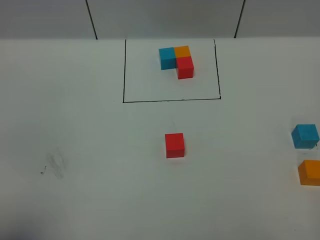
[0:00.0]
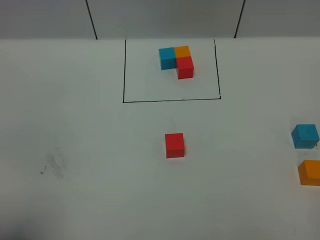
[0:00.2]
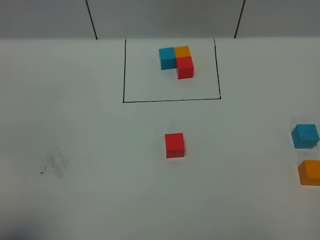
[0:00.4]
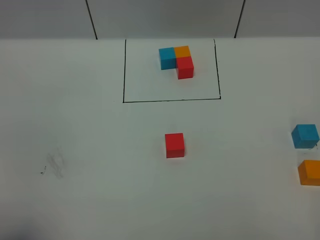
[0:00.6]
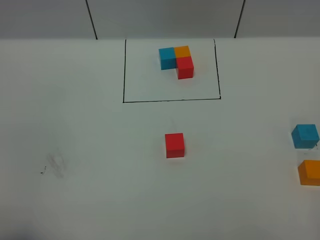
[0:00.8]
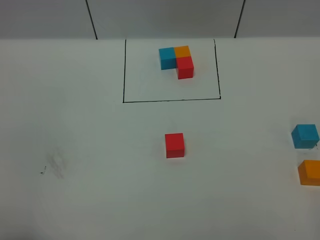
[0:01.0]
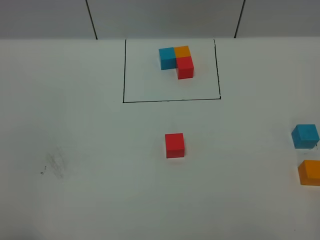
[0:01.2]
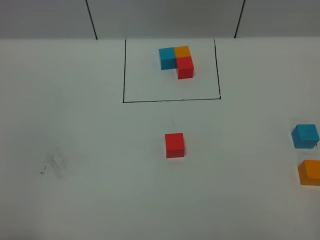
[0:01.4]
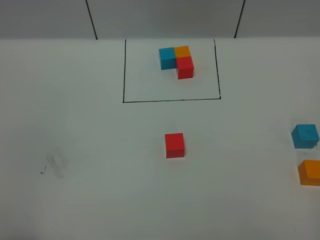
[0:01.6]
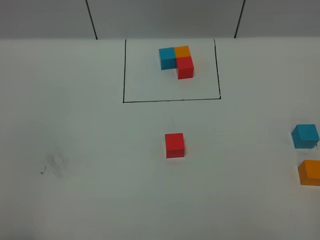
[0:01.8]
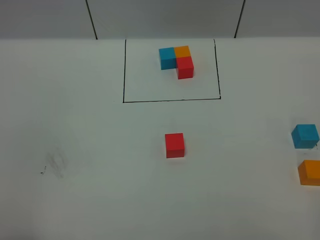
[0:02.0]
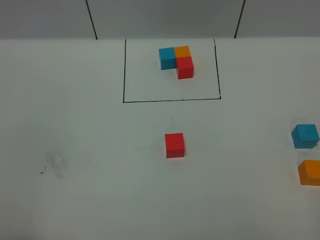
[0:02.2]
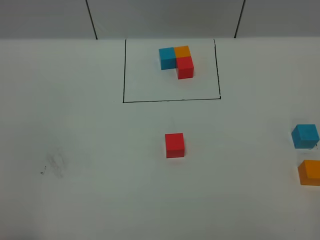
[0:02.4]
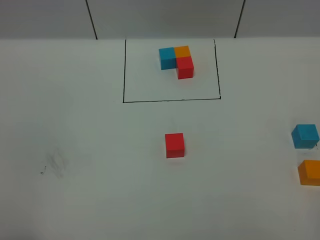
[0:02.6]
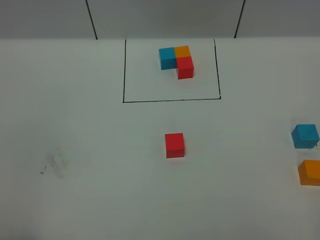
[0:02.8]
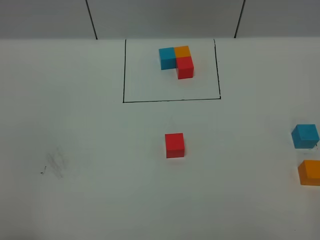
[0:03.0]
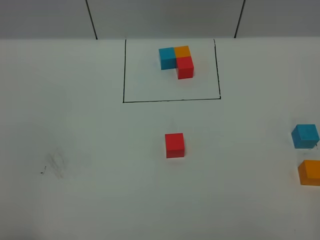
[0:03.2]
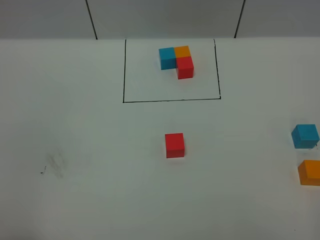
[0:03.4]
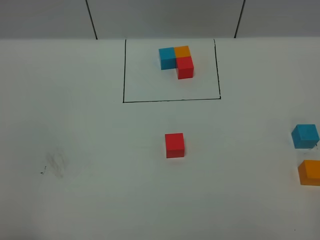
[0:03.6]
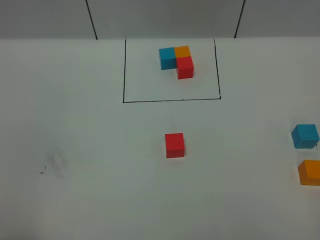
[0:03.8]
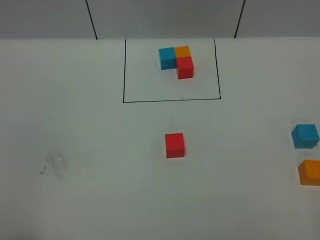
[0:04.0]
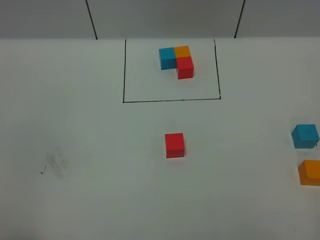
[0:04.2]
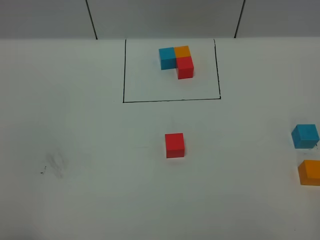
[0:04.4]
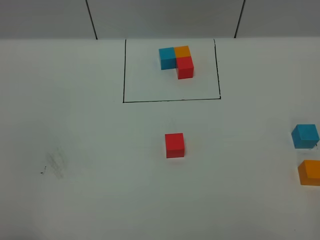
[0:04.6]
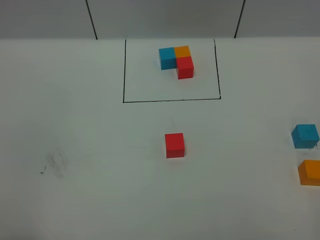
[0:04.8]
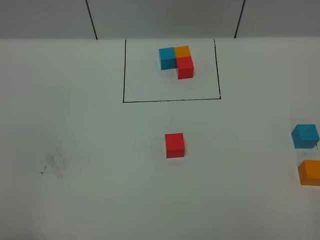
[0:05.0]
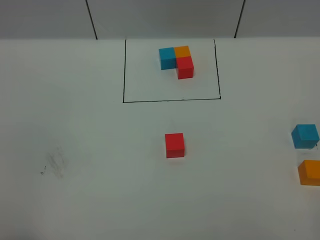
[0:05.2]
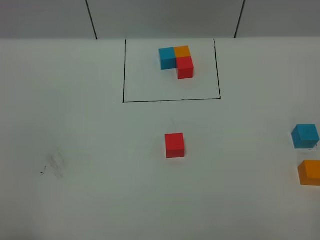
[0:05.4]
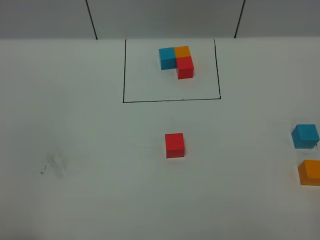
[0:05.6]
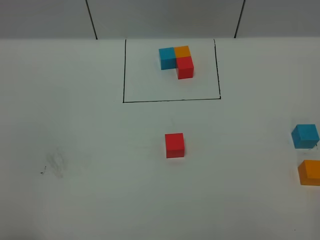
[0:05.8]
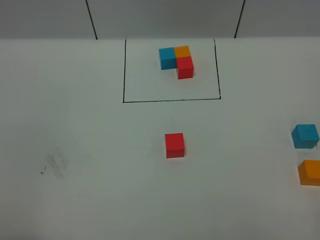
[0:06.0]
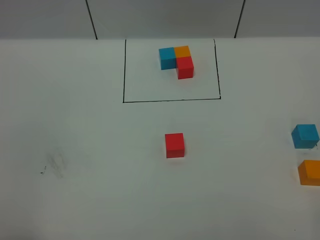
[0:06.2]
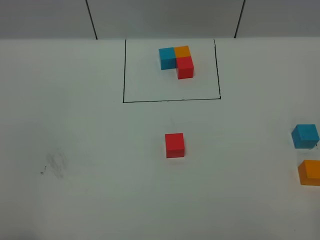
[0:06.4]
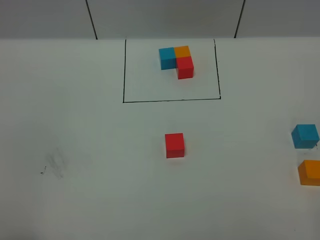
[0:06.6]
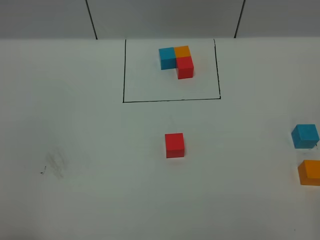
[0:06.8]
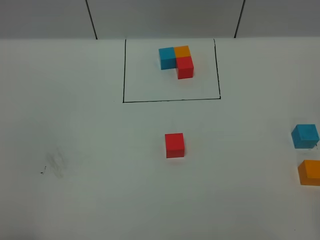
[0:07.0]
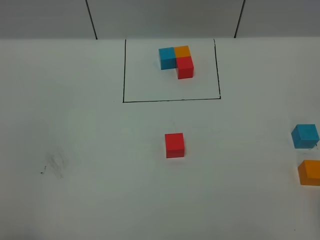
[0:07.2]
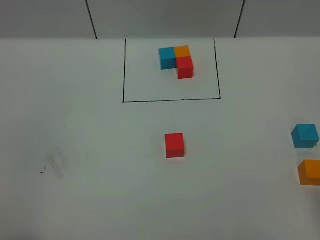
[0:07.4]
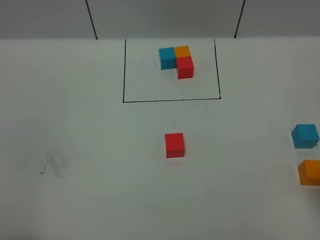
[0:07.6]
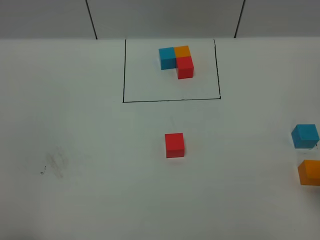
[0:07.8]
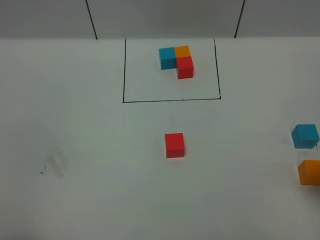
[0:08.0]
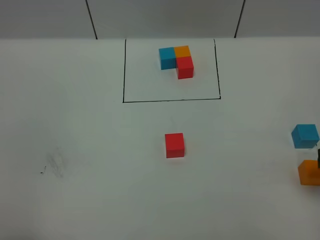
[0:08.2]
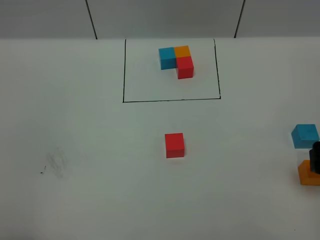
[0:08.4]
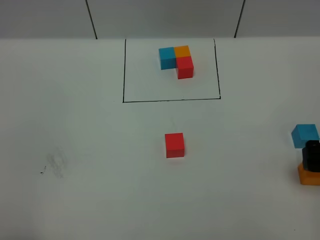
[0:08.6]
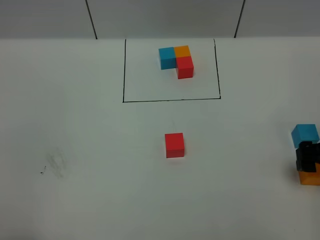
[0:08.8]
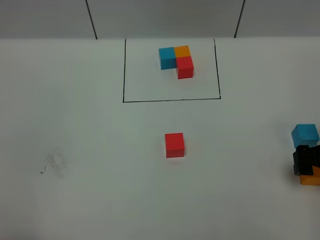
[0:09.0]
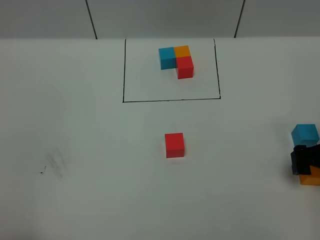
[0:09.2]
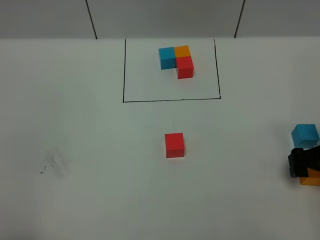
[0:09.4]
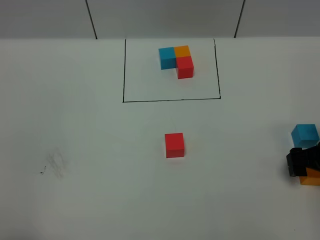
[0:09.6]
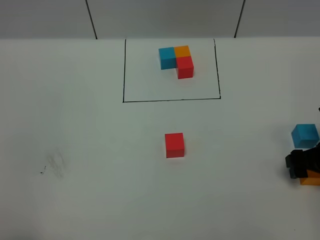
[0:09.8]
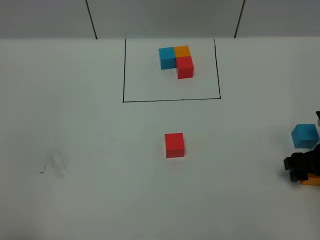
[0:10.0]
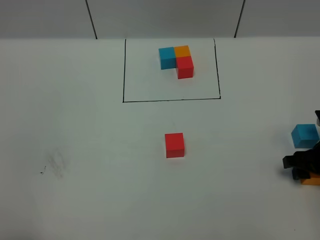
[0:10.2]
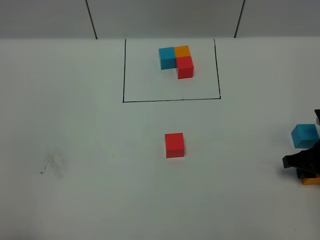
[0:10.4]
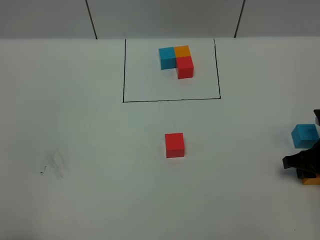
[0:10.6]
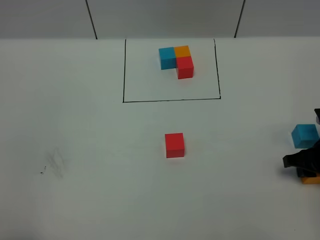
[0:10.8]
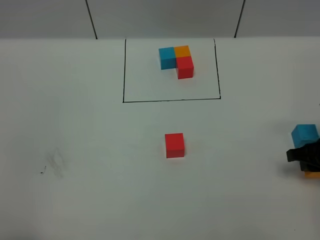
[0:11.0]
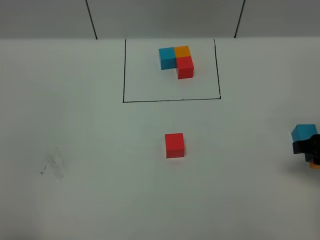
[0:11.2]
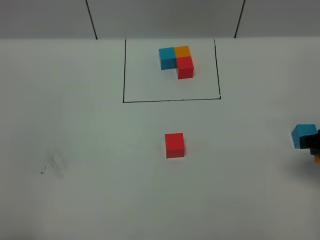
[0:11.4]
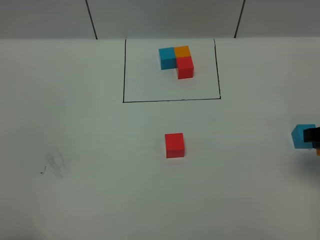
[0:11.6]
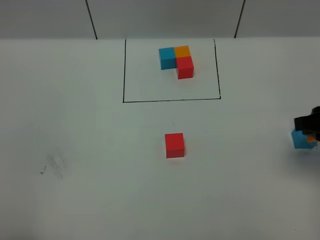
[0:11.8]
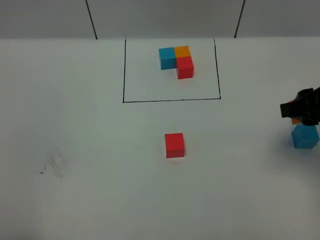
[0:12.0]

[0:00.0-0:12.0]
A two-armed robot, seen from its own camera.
Task of the whole recording: According to the building block template in front, assemble the scattered blocks together.
0:01.6 to 0:04.4: Both grippers stay about where they are.
0:07.6 to 0:09.0: The right gripper shifts some 15 cm downward and forward.
0:09.0 to 0:10.4: The right gripper ends up approximately 5 cm from where it was, and closes up.
0:10.4 to 0:12.0: The right gripper goes approximately 15 cm upward.

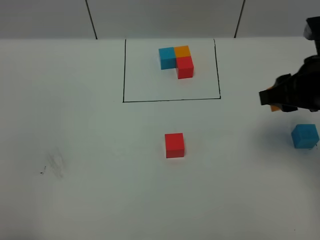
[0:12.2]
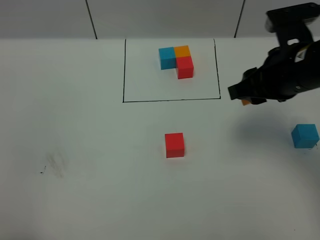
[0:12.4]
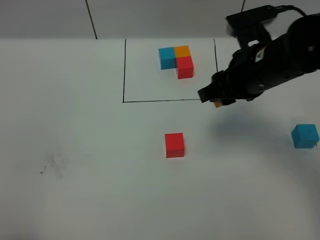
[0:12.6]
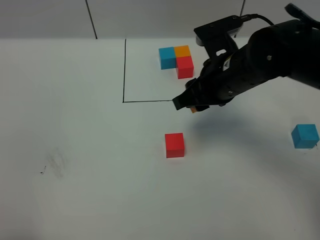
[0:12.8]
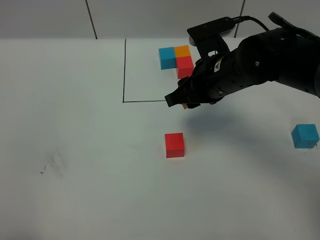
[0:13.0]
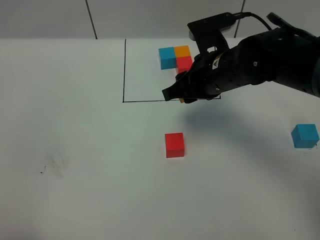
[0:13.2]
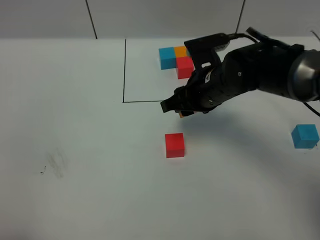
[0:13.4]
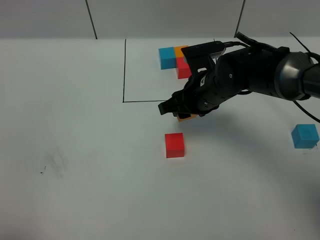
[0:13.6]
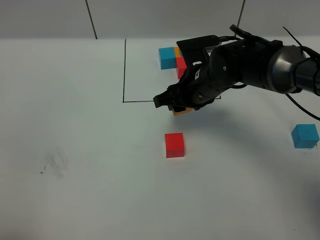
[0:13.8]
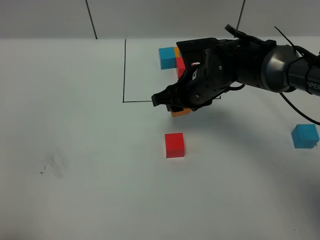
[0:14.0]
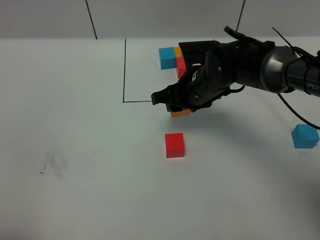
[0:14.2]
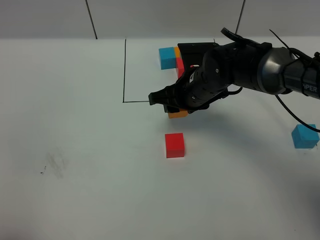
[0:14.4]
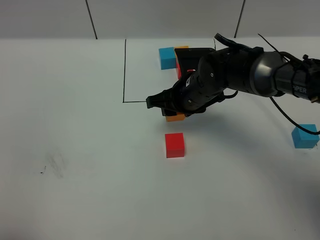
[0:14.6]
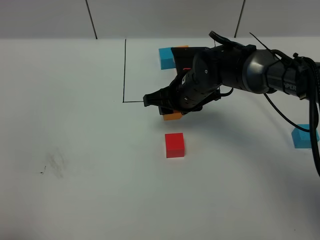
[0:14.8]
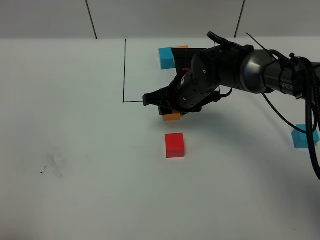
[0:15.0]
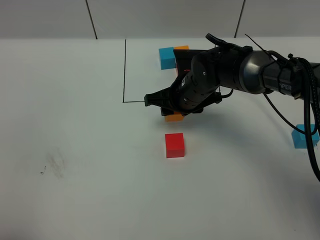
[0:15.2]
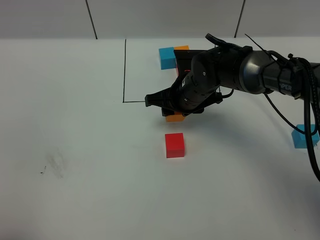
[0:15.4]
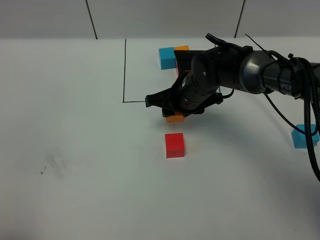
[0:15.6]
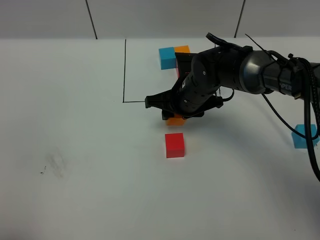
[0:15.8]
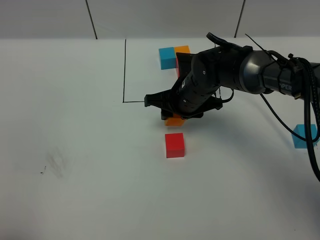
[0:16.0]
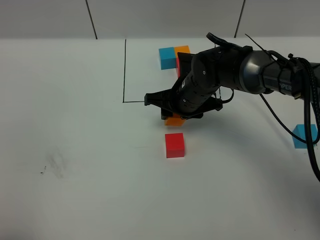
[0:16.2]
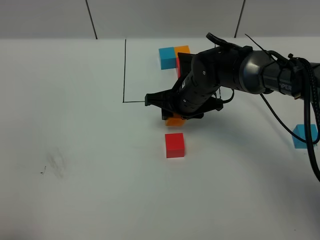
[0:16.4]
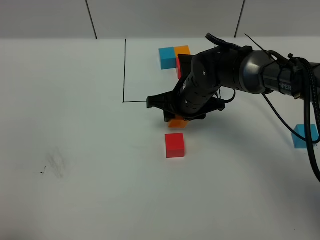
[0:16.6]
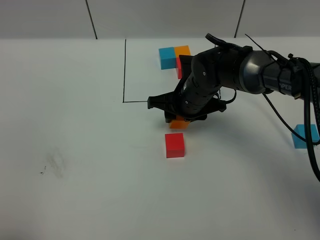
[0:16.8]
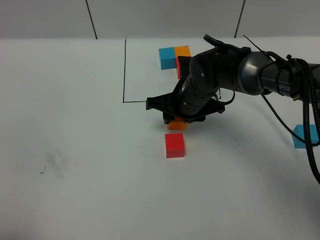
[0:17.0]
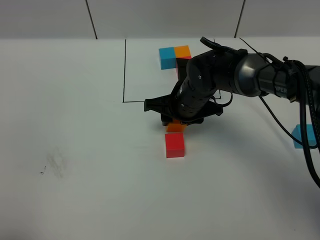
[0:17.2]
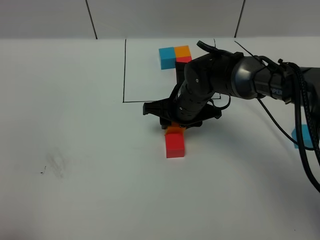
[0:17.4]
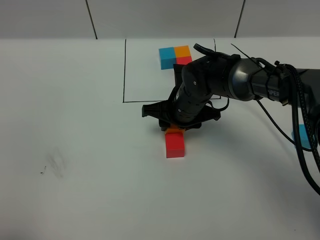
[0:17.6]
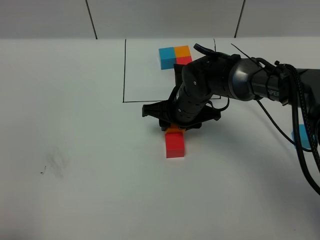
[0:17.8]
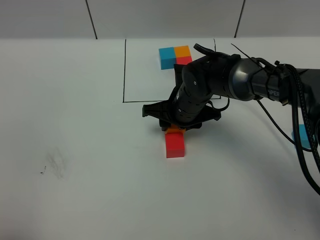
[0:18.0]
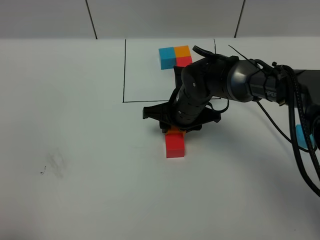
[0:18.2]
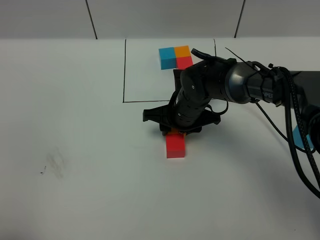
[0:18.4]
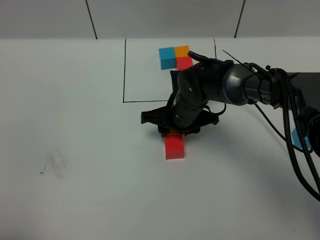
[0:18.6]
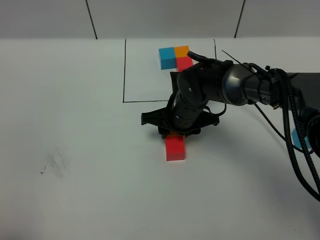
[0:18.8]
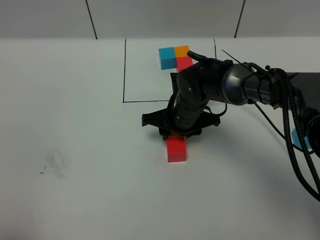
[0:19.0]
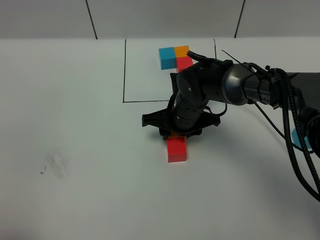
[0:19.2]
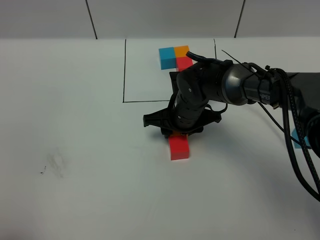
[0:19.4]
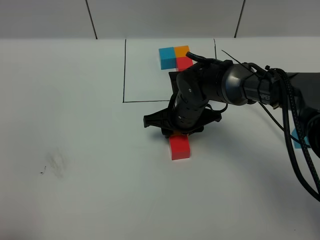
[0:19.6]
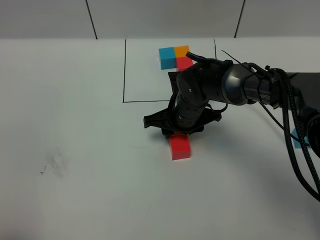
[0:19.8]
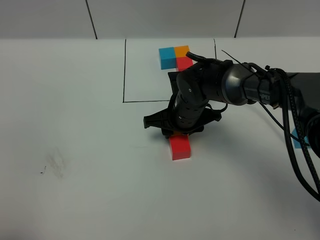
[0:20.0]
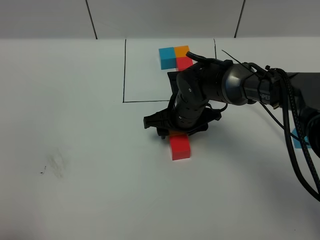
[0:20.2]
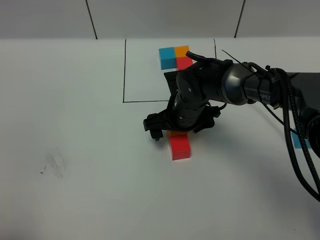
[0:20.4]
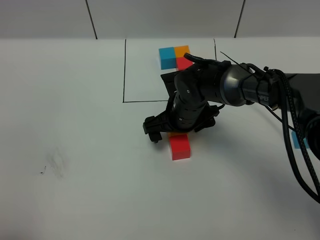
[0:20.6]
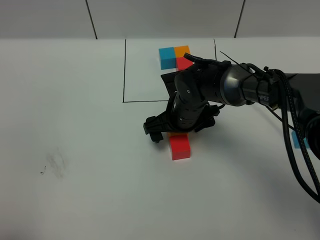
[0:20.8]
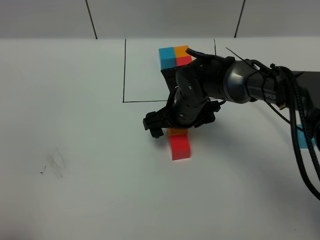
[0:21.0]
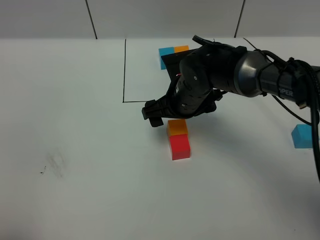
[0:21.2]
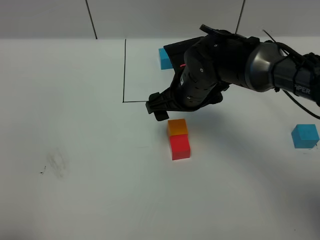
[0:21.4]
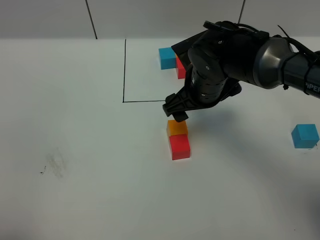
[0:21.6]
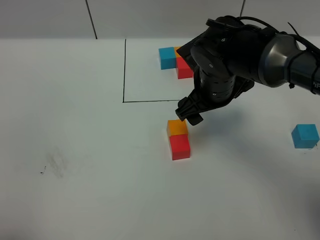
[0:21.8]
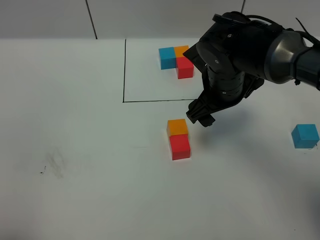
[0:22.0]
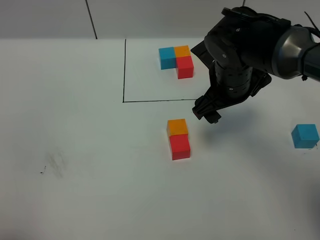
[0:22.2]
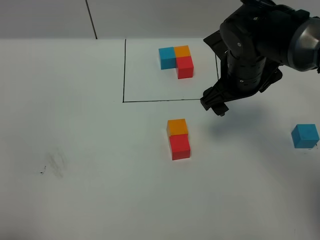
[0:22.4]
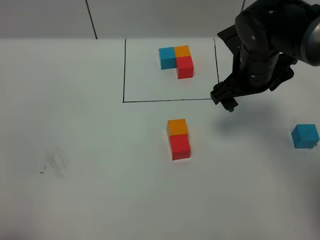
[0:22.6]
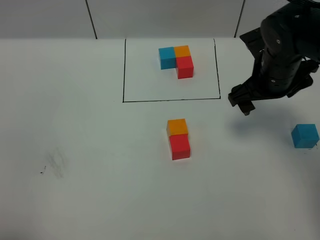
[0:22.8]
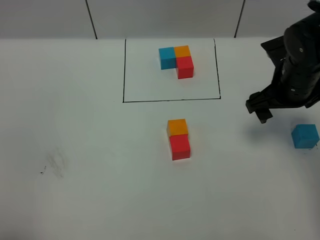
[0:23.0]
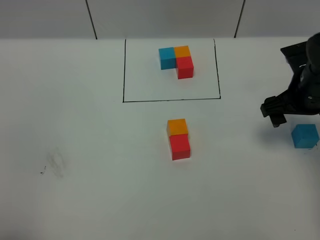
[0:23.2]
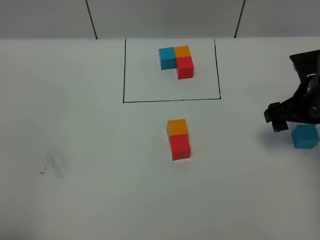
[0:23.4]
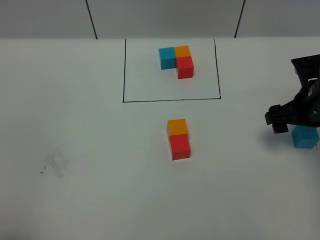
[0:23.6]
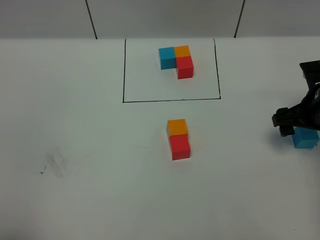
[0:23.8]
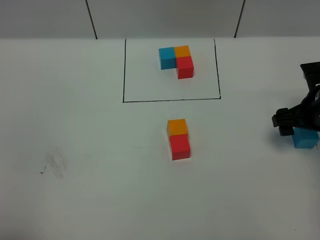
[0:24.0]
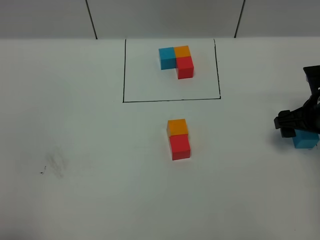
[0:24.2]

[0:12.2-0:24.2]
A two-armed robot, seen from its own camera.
Task of the whole recording: According to the building block template in front, assemble the scattered blocks together.
Step, 0:12.2 to 0:20.6: Put the orange cube on the behind of the red cube.
0:12.2 to 0:13.8: The right gripper is displaced to the left, downward and forward by about 20 cm.
0:13.8 to 0:16.6: The grippers make only small movements.
0:16.6 to 0:19.8: The grippers make only small movements.
0:19.8 to 0:21.2: The right gripper goes approximately 5 cm upward, and opens up.
0:21.2 to 0:22.6: The right gripper goes some 15 cm to the right and upward.
0:22.6 to 0:24.2: The right gripper shifts roughly 15 cm to the right and downward.
